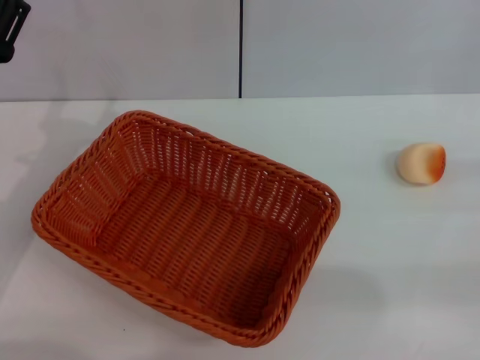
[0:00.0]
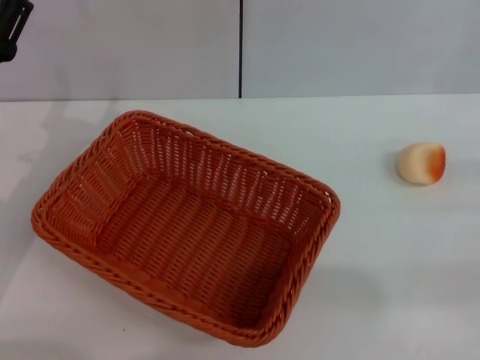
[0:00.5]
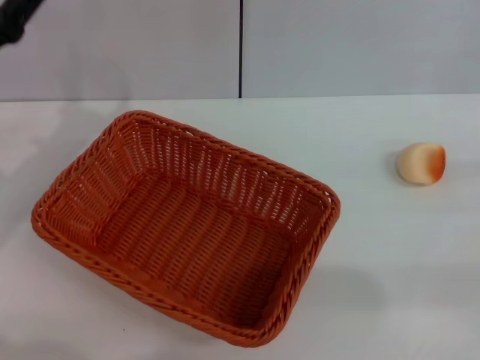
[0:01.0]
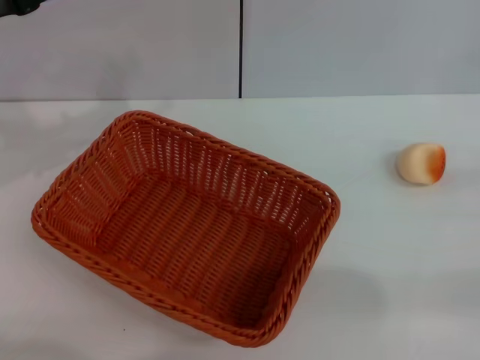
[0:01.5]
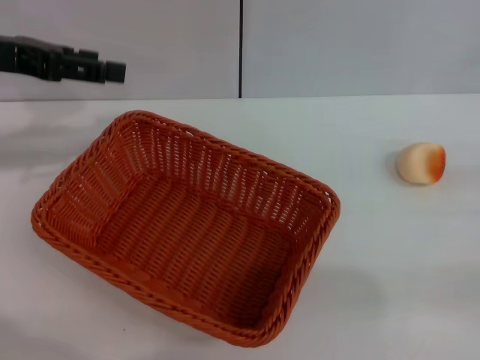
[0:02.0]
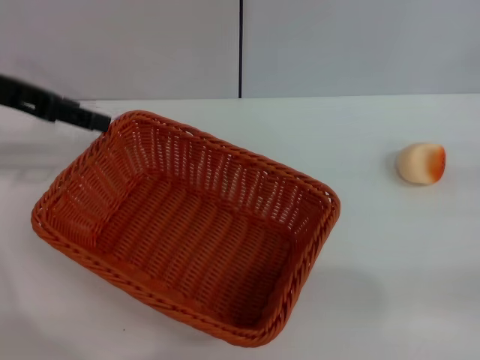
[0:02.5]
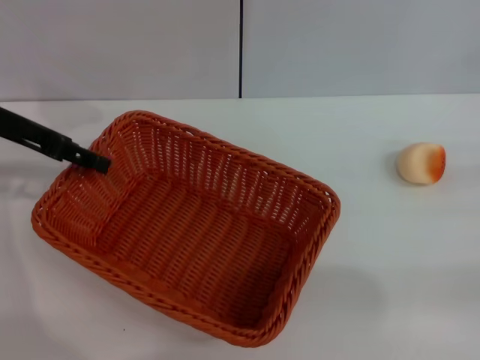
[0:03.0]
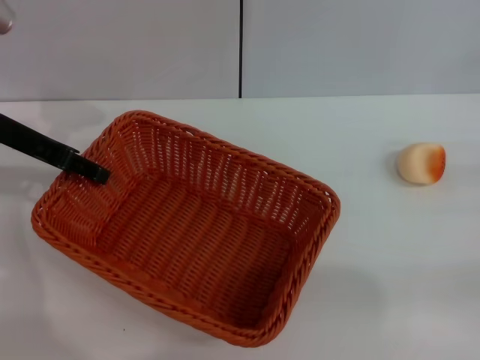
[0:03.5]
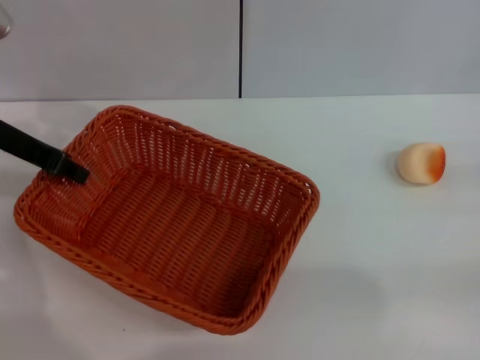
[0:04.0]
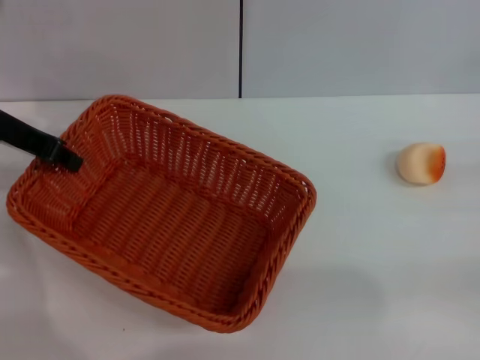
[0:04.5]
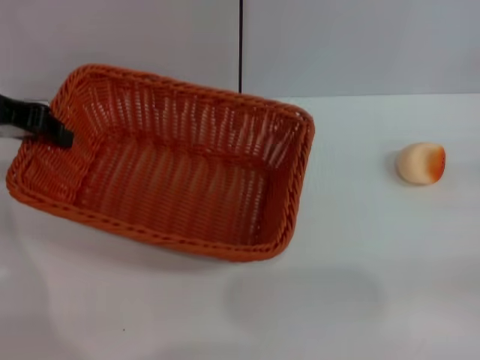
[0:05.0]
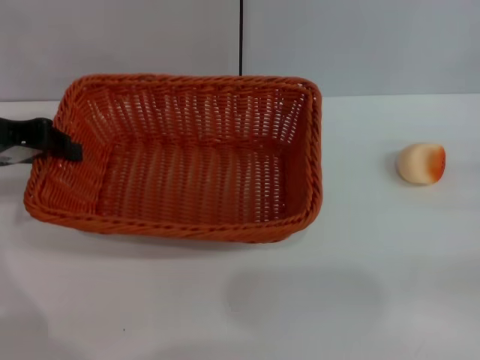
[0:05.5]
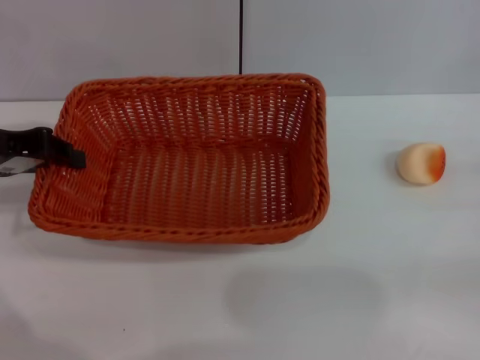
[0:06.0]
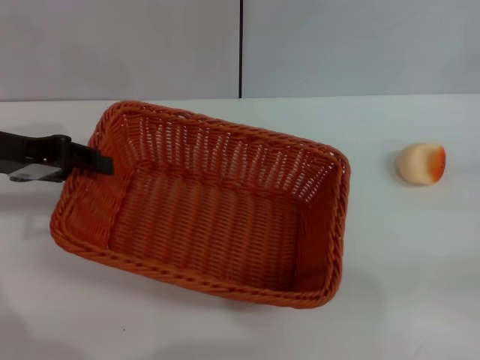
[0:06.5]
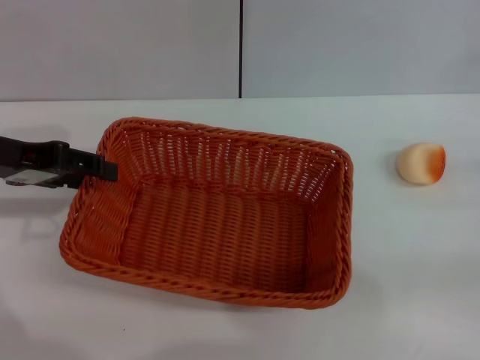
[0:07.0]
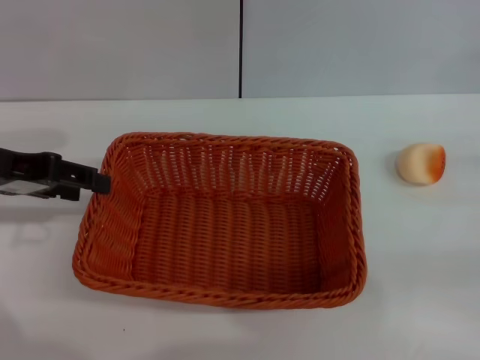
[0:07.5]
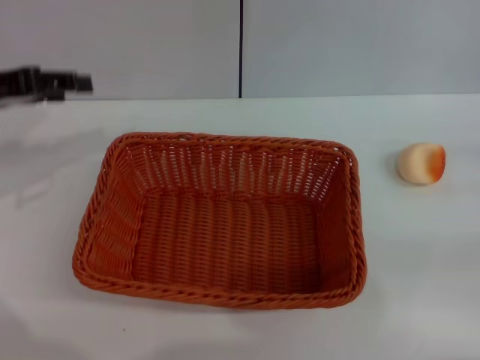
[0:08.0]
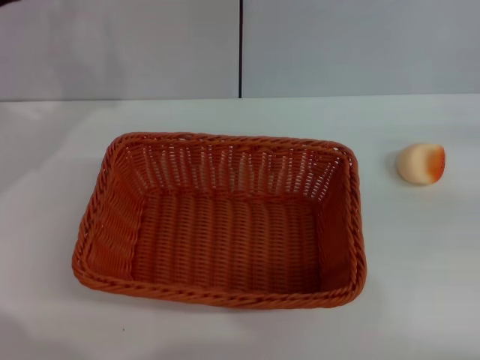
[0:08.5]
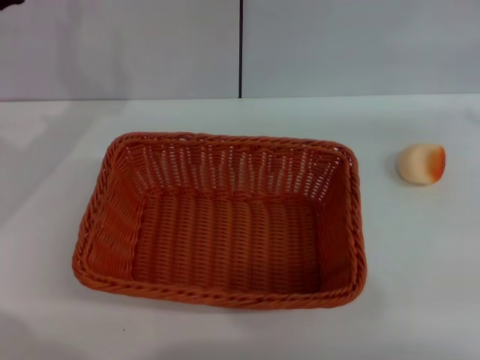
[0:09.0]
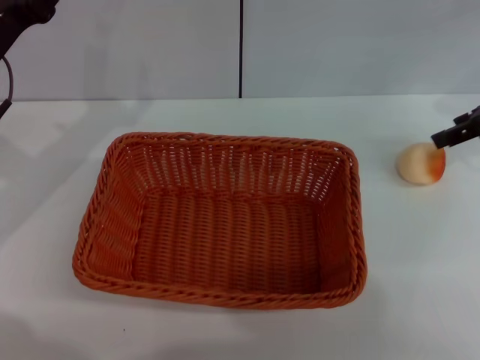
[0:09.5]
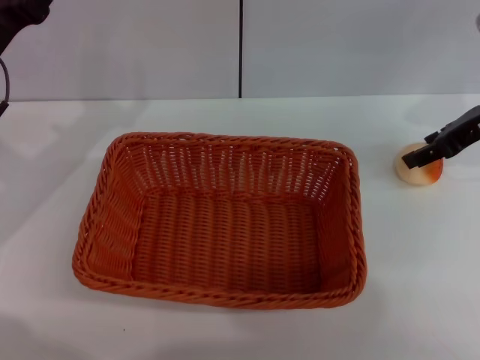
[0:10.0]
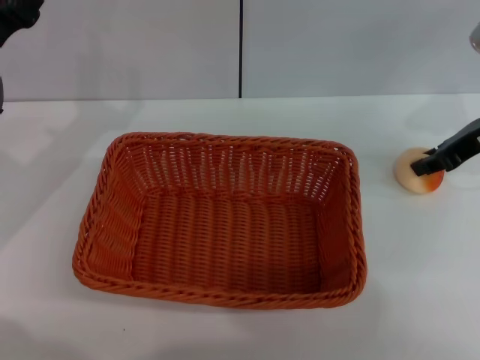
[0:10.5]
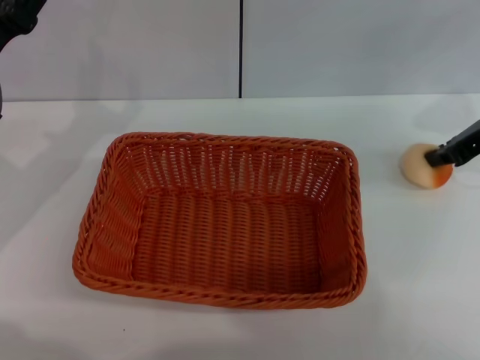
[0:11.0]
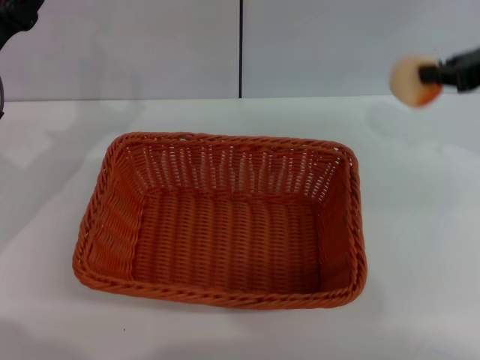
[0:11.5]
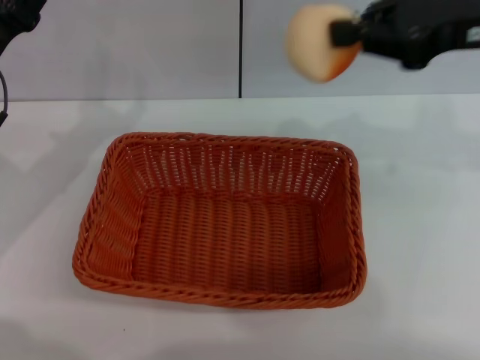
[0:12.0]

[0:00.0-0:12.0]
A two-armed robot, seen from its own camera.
Step, 0:00.0 to 0:07.5: Move the basket to the center of view with the left gripper.
Step, 0:08.5 to 0:11.0: Pick up the egg yolk pastry with the right gripper.
0:00.0 to 0:02.0: The left gripper heads upward and forward, covering roughly 15 cm.
0:02.0 to 0:04.0: The left gripper heads downward, covering some 5 cm, and closes its fingers.
0:04.0 to 0:06.0: The left gripper heads backward, covering roughly 5 cm, and closes up.
0:06.0 to 0:08.0: The left gripper opens its fingers.
0:08.0 to 0:10.0: The left gripper goes roughly 5 cm downward. The right gripper moves forward, to the left and upward, some 20 cm.
0:10.0 to 0:12.0: The right gripper goes some 10 cm upward and backward, and closes up.

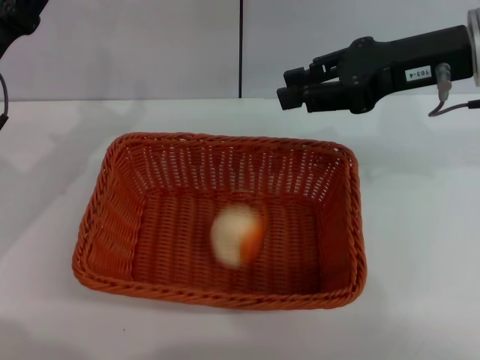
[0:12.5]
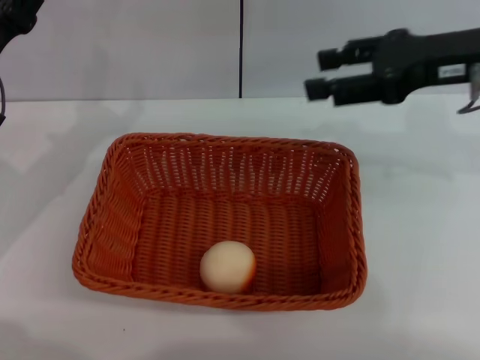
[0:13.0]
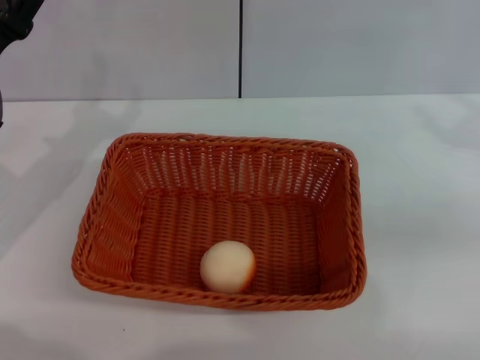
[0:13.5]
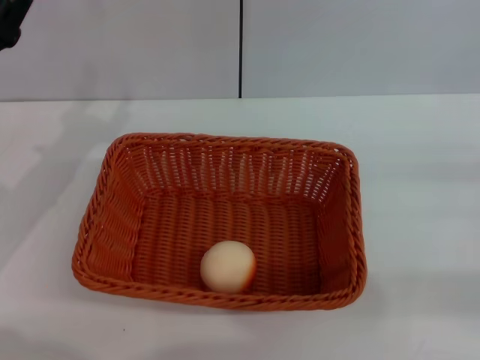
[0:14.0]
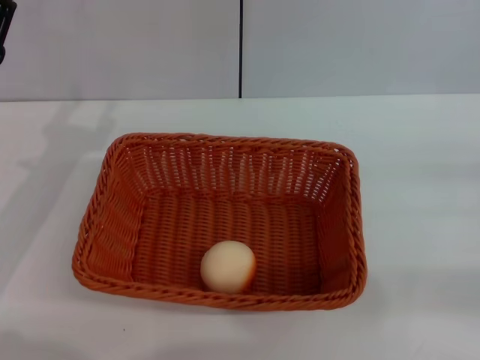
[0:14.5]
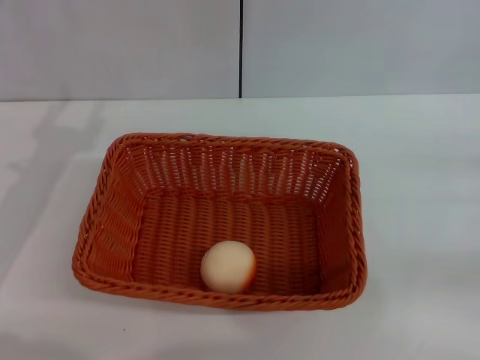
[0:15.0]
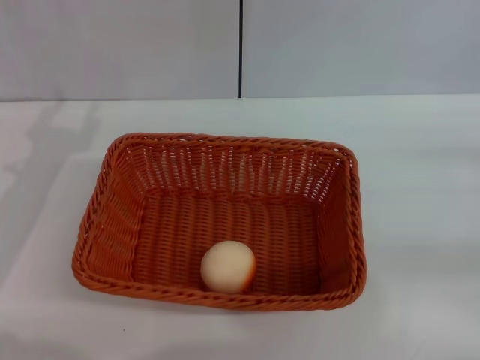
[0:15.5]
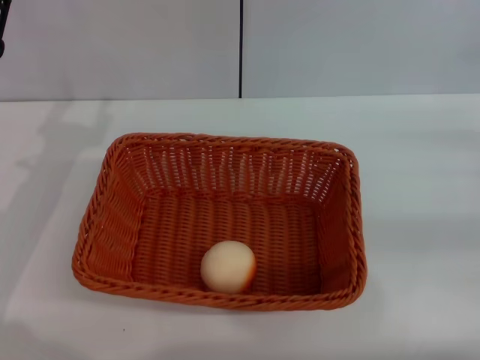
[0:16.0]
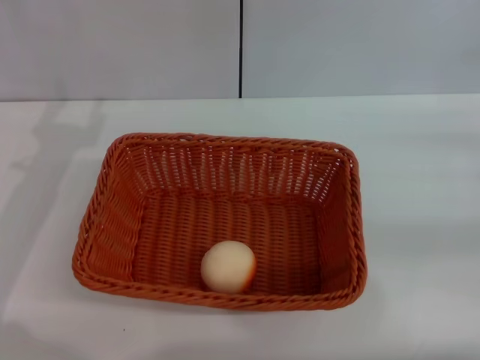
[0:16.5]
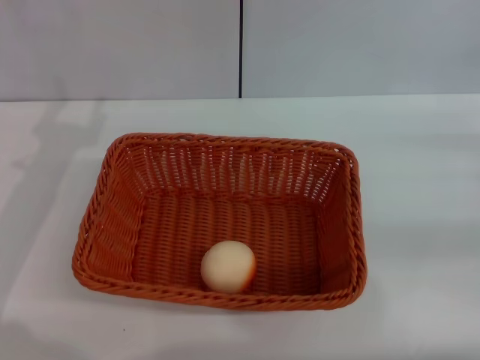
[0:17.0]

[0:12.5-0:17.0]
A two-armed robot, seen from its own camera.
0:12.5 to 0:14.5: The right gripper shifts some 25 cm to the right, downward and backward, and opens its fingers.
